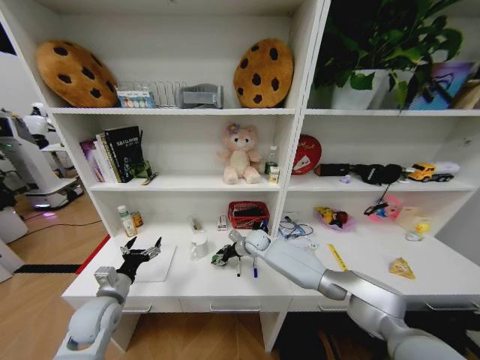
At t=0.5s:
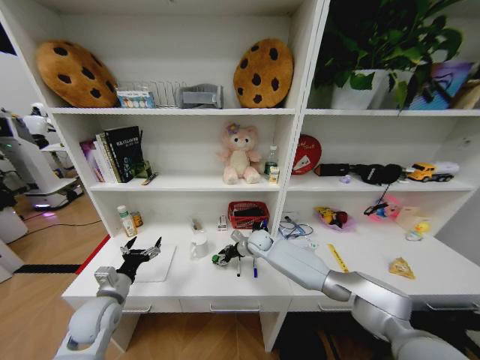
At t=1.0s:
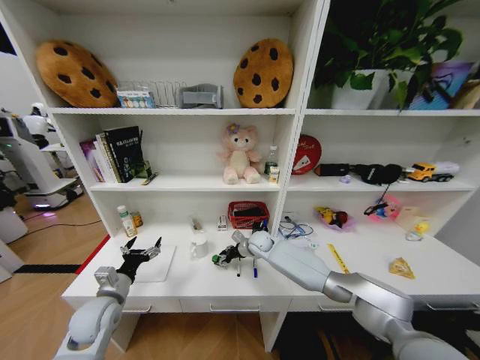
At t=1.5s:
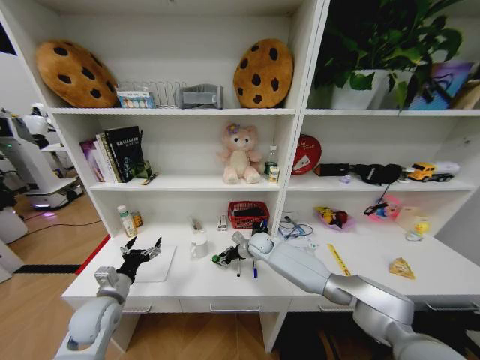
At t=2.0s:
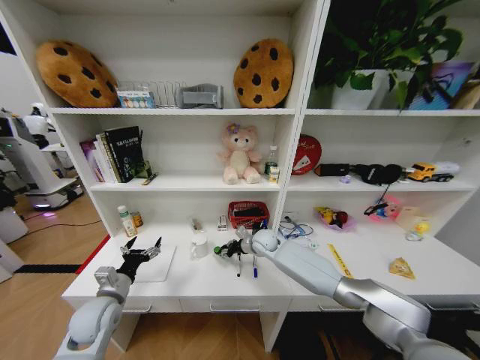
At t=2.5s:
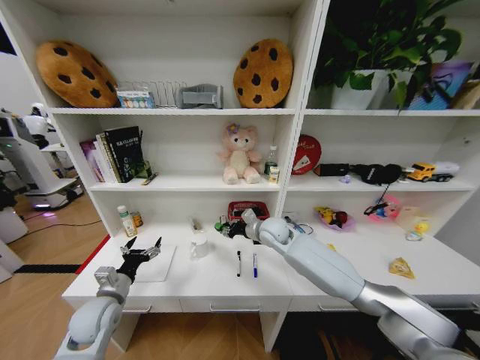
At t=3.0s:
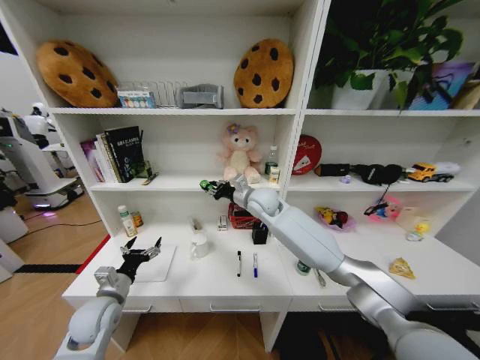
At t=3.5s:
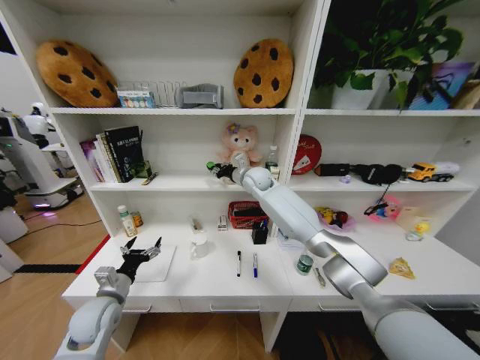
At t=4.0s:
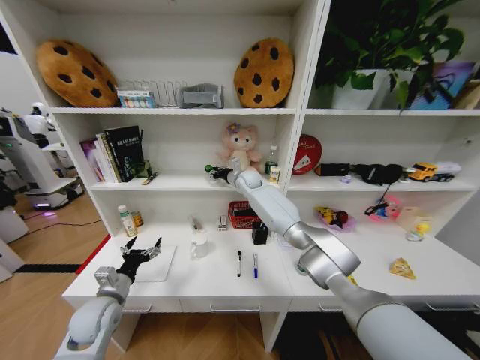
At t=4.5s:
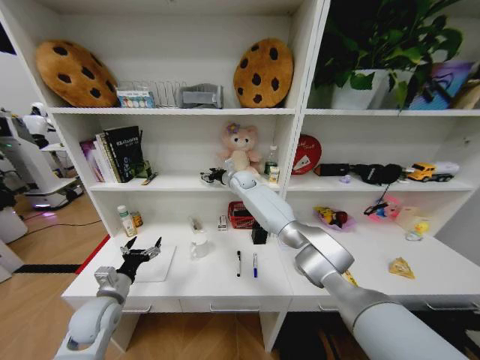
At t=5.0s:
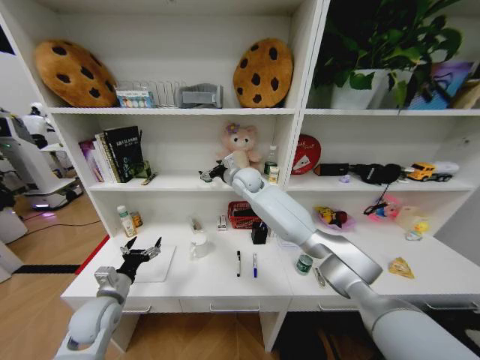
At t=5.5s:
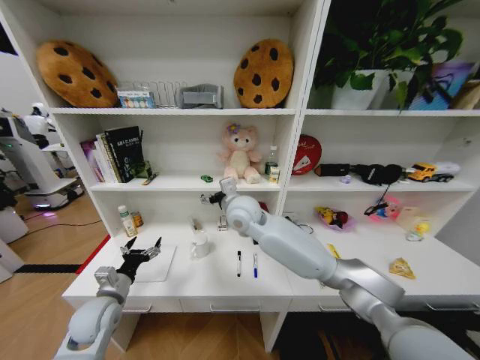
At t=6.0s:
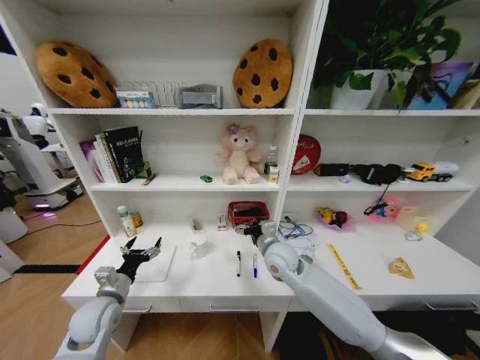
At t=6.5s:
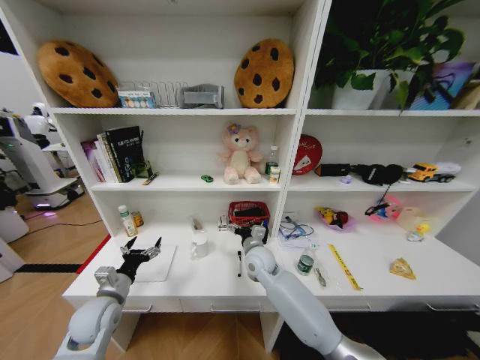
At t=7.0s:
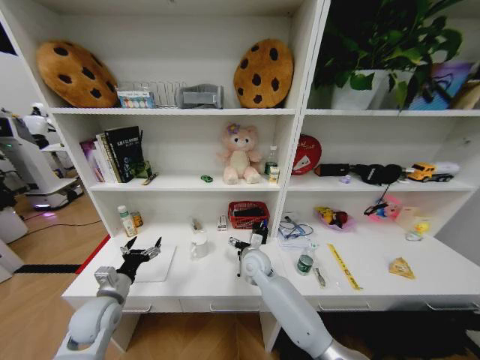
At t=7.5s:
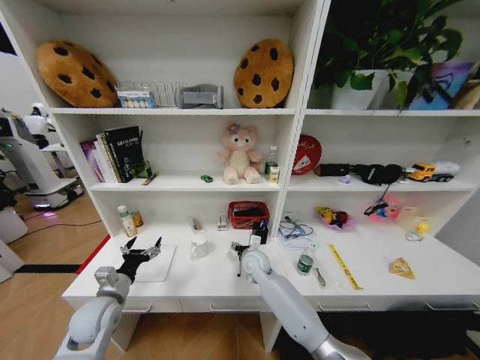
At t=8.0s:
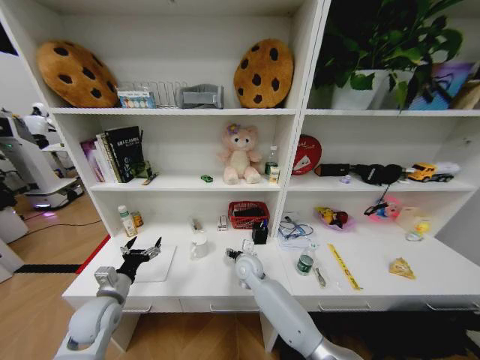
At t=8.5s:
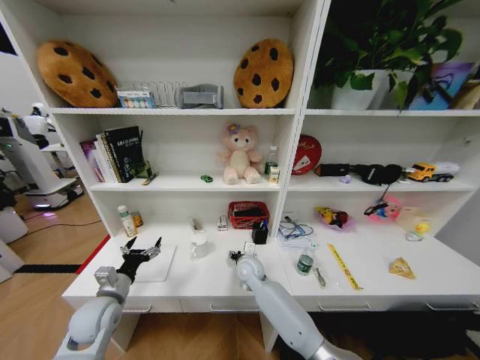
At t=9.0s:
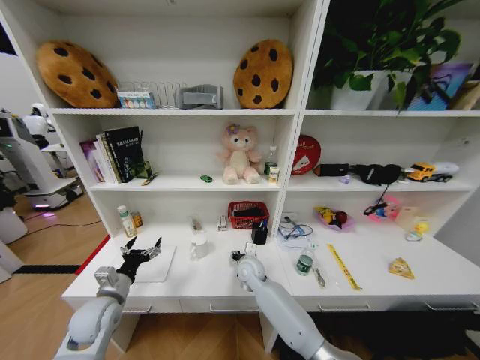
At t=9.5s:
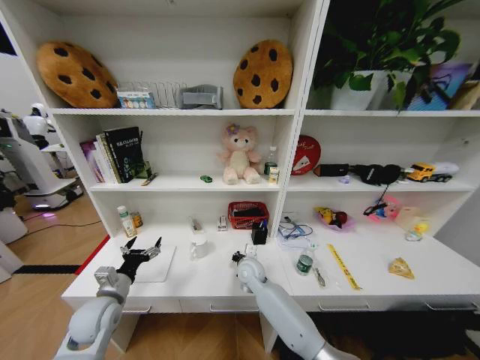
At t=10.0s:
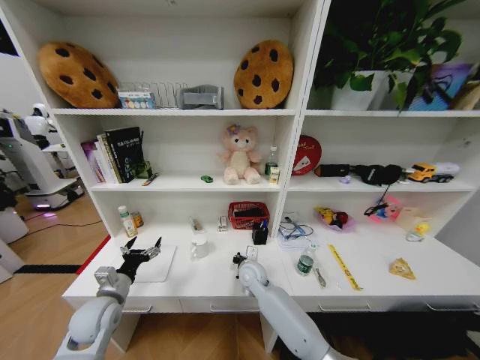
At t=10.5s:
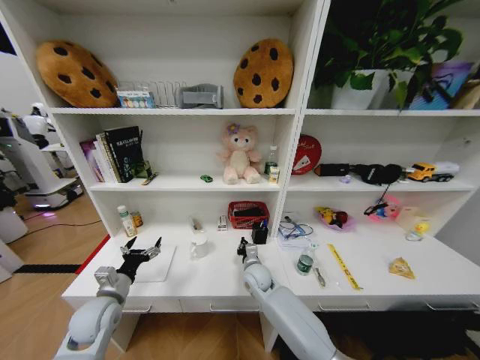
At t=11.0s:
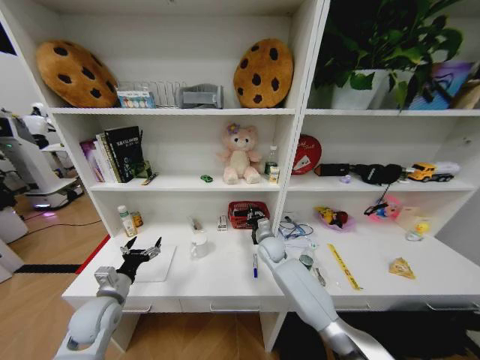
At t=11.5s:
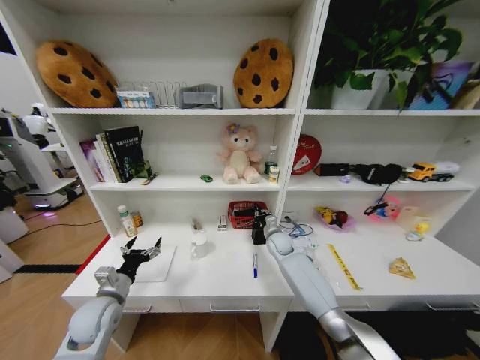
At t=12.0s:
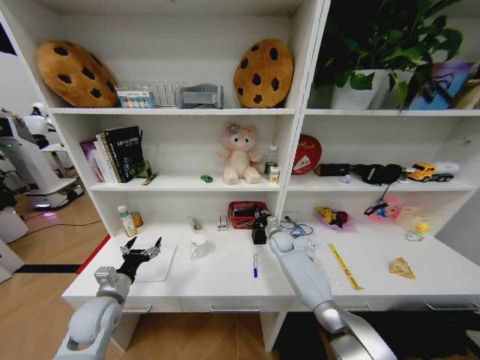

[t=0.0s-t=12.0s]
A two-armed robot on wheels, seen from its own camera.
Task of the whole recording: Organize the objects on the table.
t=0.0s to t=2.0s: The grippers stay close to where they were, moving slightly.
t=2.0s to t=4.0s: The right gripper heads upward and forward, covering some 25 cm.
t=4.0s to t=6.0s: The right gripper shifts some 25 cm backward, and opens.
t=6.0s to t=8.0s: The right gripper moves downward and to the left, some 15 cm.
t=8.0s to t=10.0s: The right gripper closes.
t=10.0s to t=12.0s: The right gripper shifts some 20 cm to the right and forward.

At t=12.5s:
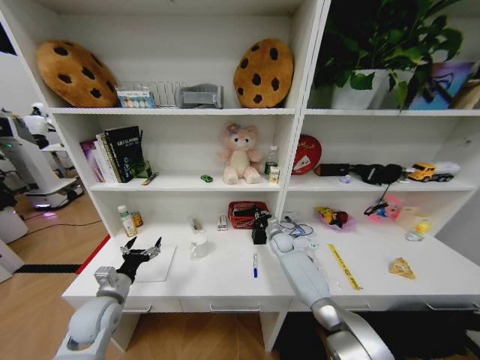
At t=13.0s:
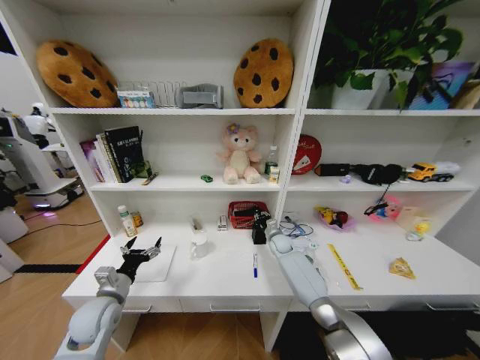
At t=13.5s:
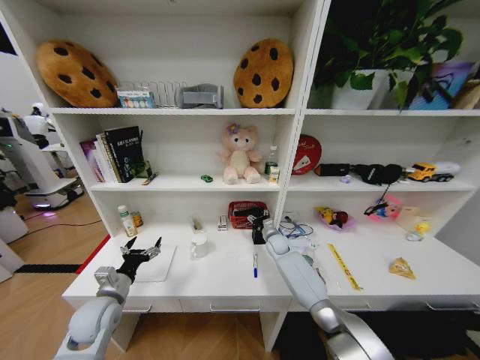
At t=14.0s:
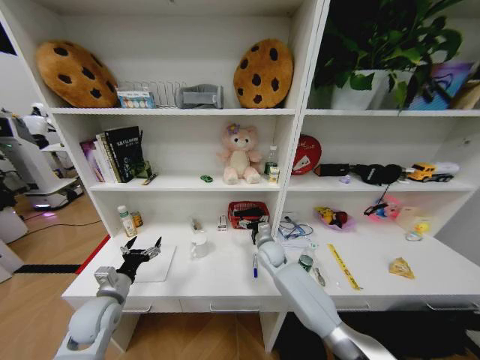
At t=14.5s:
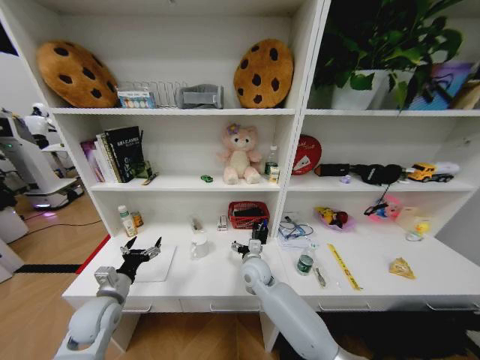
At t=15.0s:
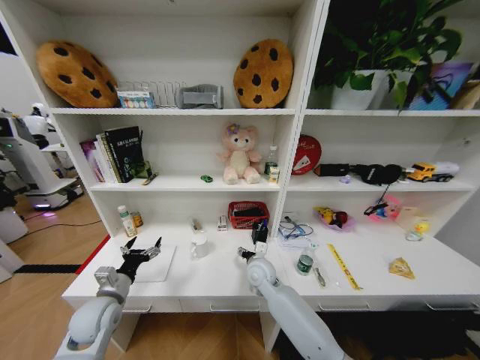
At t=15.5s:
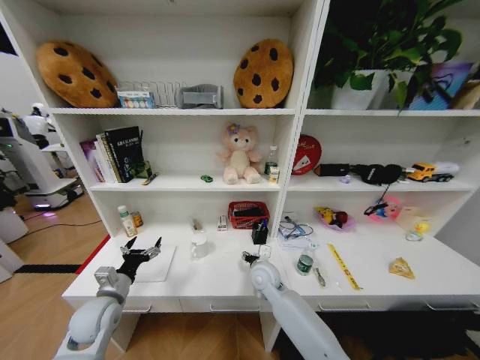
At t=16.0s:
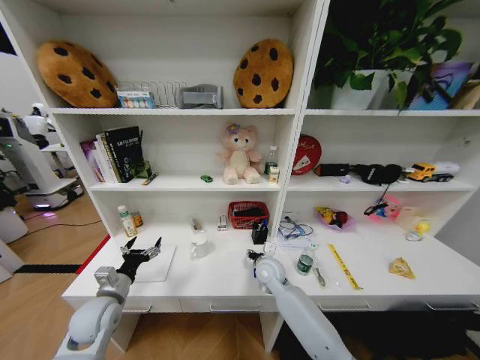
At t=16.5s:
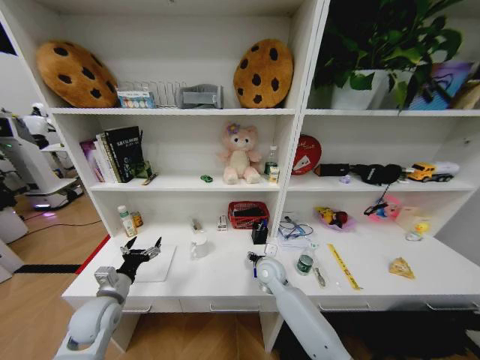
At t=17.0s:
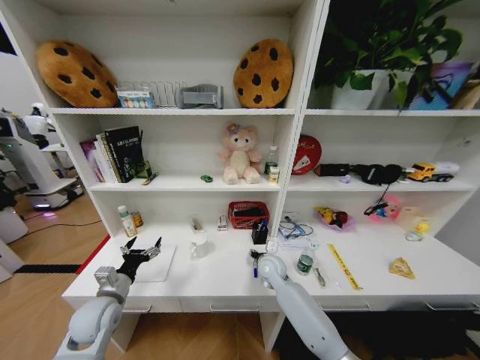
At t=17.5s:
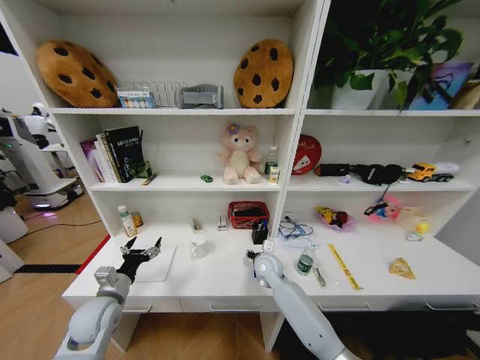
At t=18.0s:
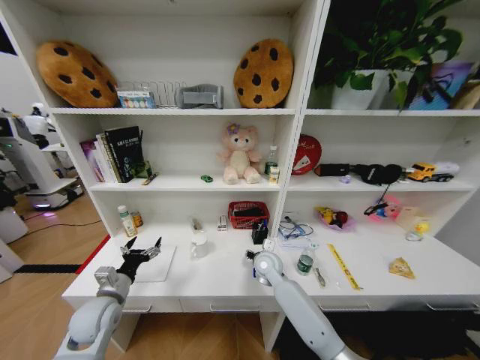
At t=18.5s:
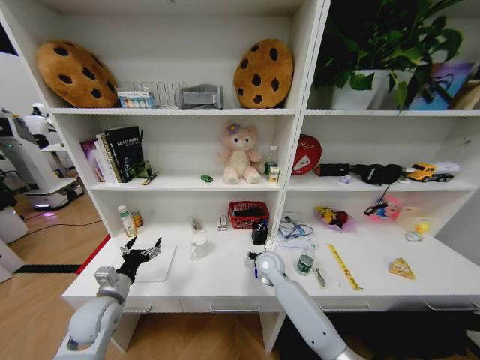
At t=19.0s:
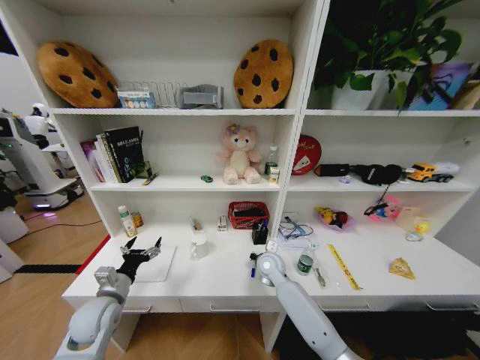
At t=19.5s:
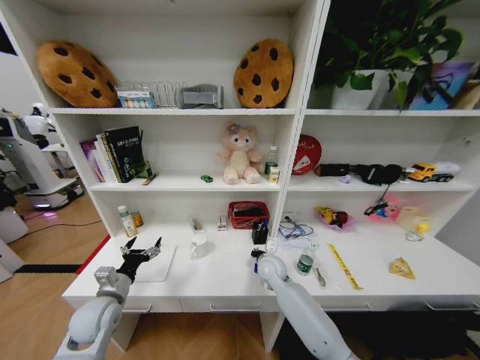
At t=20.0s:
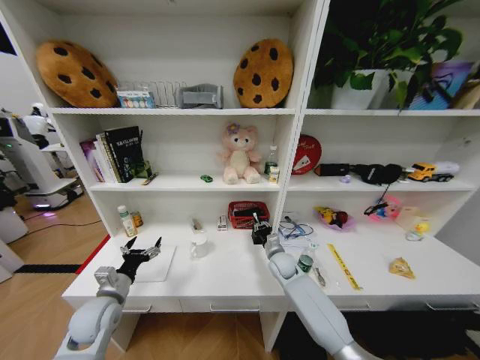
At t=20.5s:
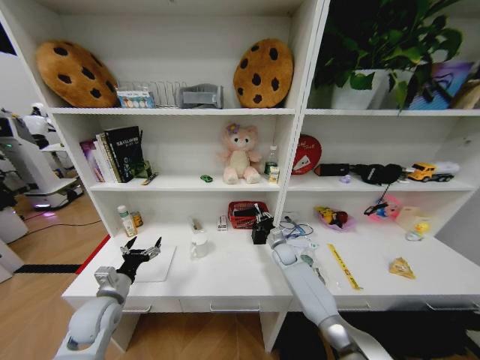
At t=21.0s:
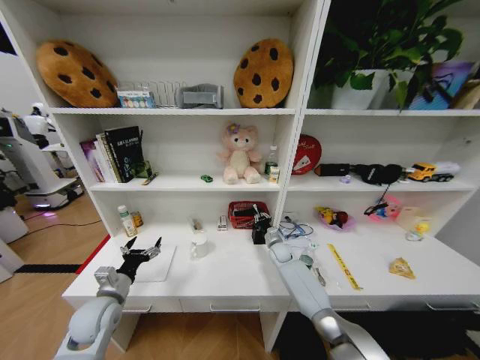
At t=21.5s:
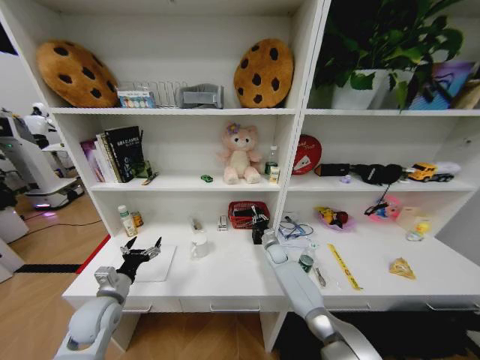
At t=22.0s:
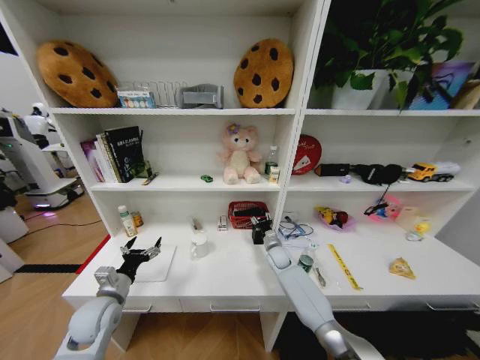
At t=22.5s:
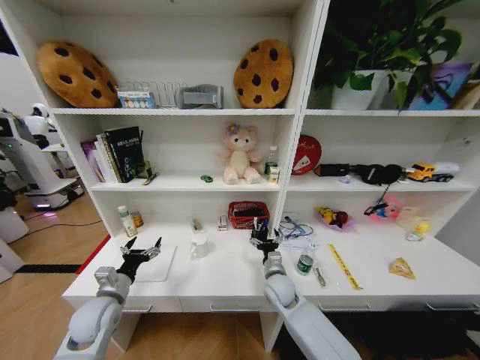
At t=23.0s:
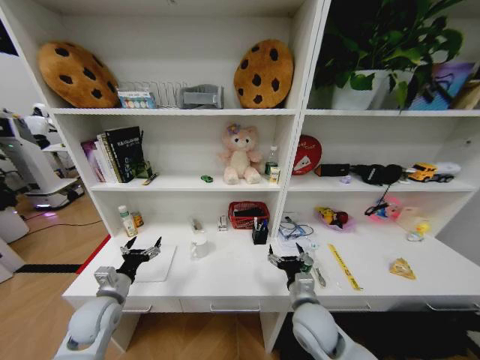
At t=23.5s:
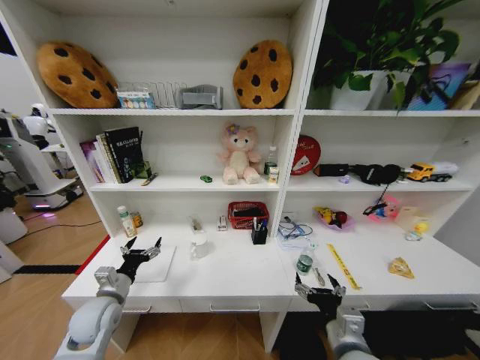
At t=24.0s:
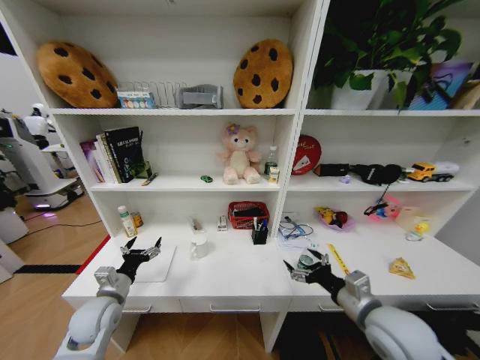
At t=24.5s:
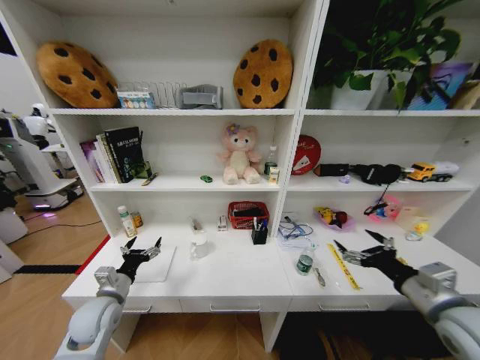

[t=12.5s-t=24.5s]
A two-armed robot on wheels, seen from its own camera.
Task of the whole recording: Organize the objects on the table.
t=12.5s to t=14.5s: The right gripper travels backward and to the left by some 20 cm, and opens its fingers.
t=14.5s to t=16.5s: The right gripper travels to the right by some 5 cm.
t=16.5s to t=18.5s: The grippers stay close to where they were, moving slightly.
t=18.5s to t=20.5s: The right gripper travels to the right, forward and downward by about 15 cm, and closes.
t=20.5s to t=22.5s: The right gripper shifts roughly 15 cm backward and to the left, and opens.
t=22.5s to t=24.5s: The right gripper goes roughly 35 cm to the right, upward and backward.

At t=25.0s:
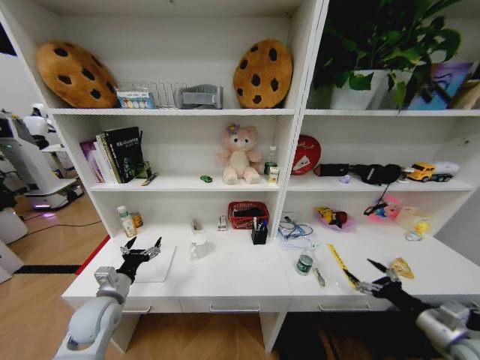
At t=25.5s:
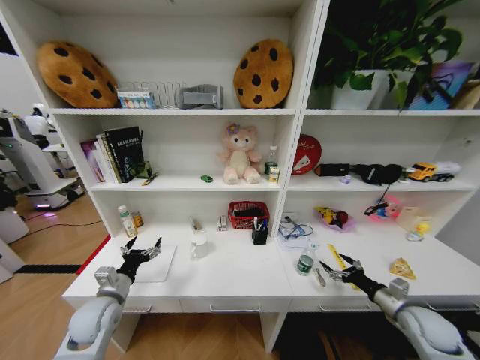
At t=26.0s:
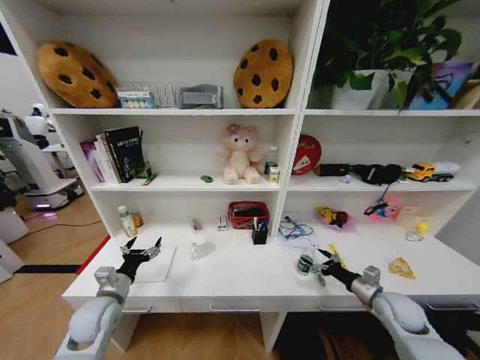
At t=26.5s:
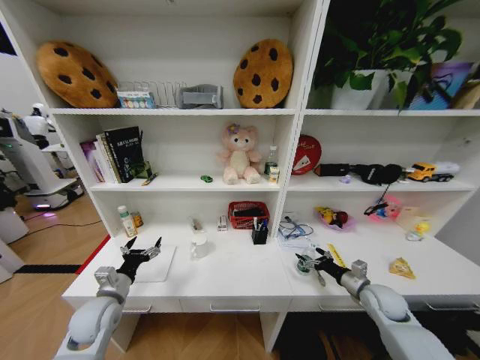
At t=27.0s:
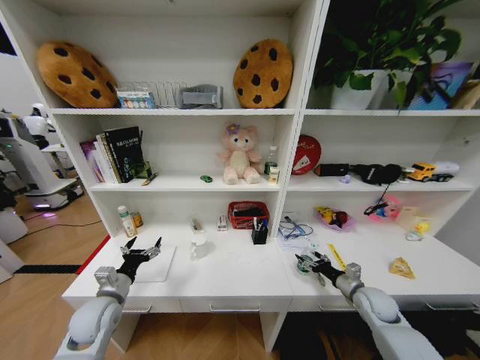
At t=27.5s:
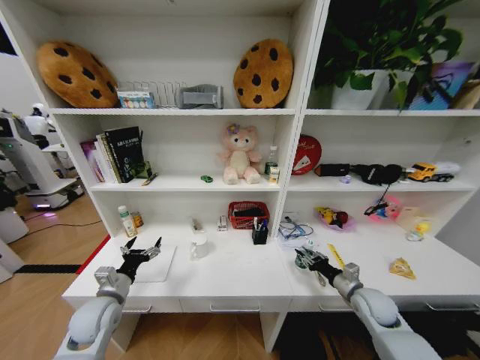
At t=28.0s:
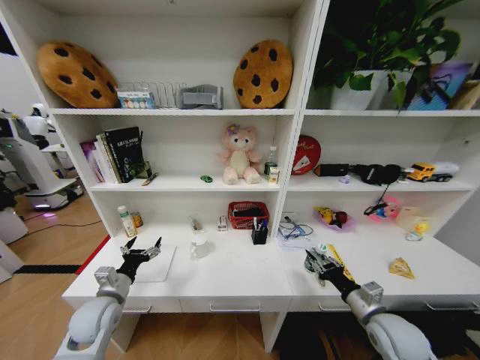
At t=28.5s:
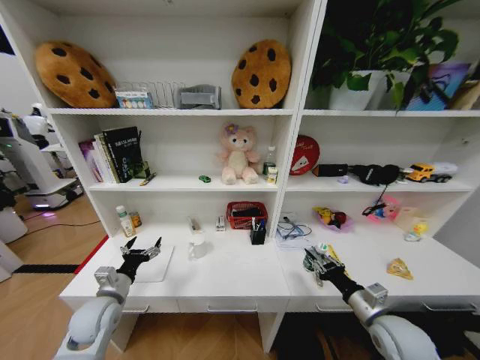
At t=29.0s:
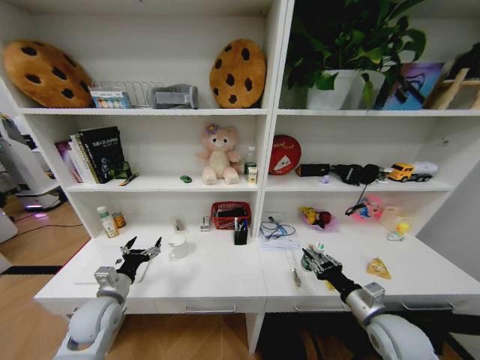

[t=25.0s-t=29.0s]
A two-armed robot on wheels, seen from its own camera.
Task of the whole recording: Organize the objects on the table.
t=25.0s to t=27.0s: The right gripper is displaced forward, downward and to the left by about 20 cm.
t=27.0s to t=29.0s: The right gripper goes some 15 cm backward, upward and to the left, and closes its fingers.
